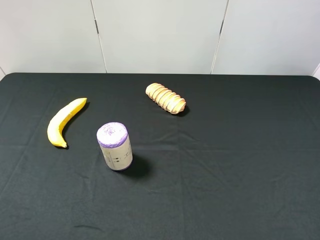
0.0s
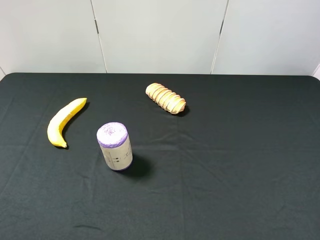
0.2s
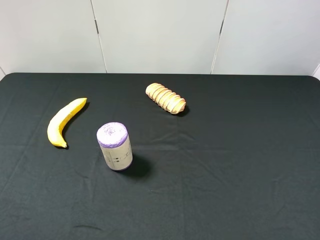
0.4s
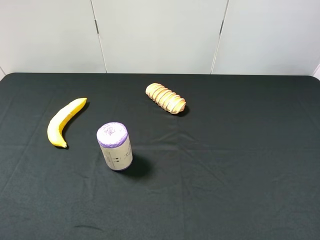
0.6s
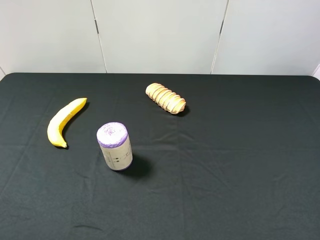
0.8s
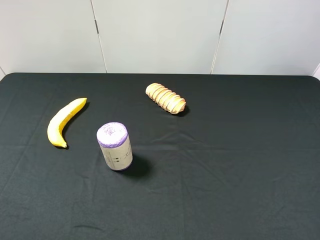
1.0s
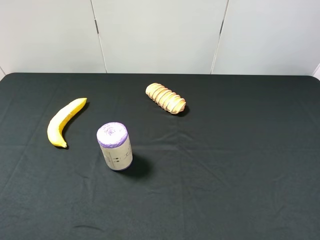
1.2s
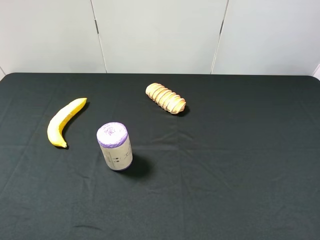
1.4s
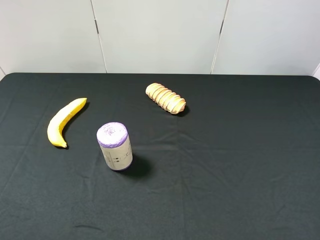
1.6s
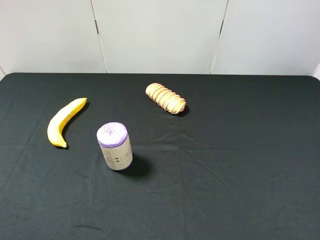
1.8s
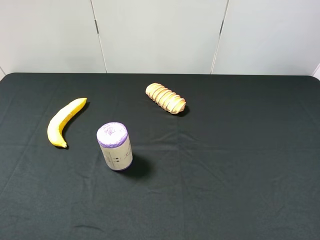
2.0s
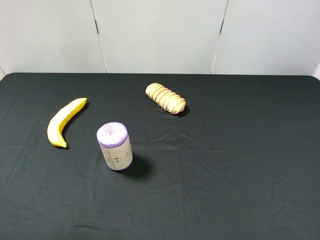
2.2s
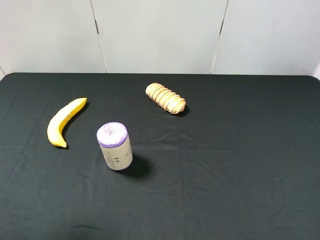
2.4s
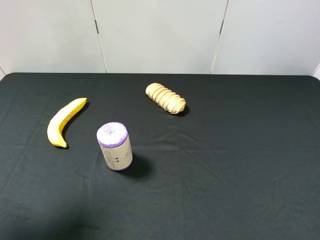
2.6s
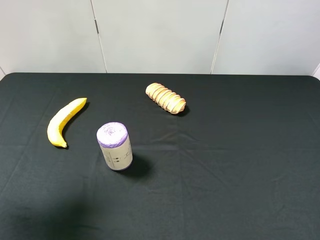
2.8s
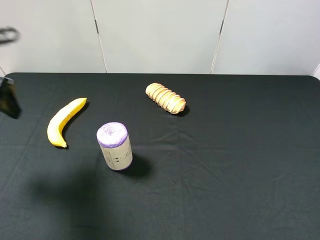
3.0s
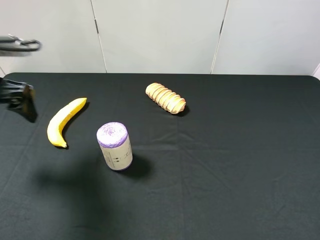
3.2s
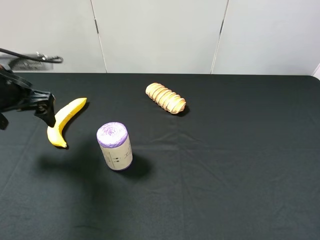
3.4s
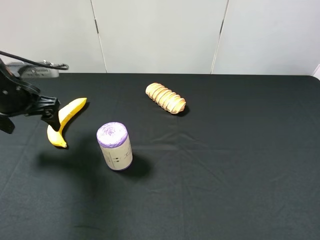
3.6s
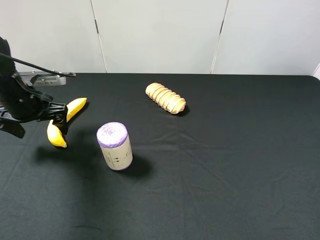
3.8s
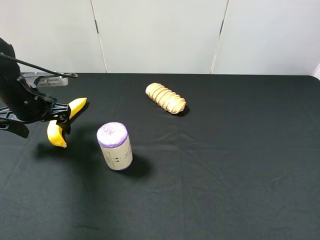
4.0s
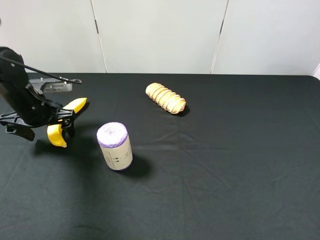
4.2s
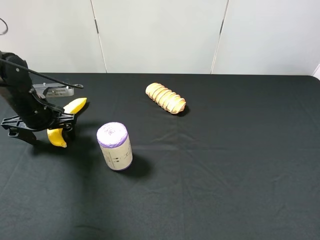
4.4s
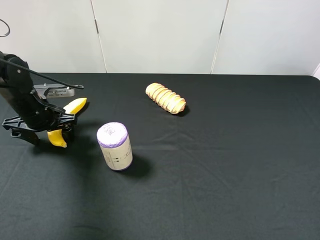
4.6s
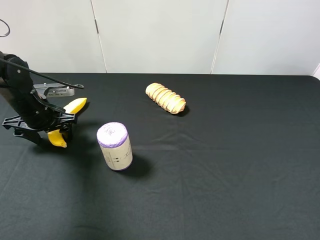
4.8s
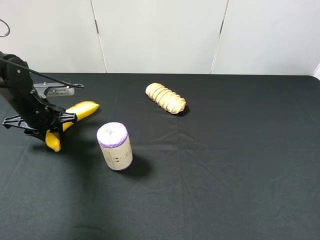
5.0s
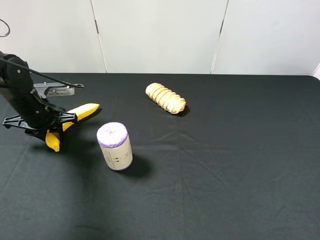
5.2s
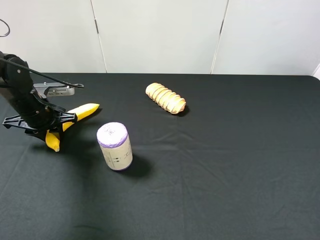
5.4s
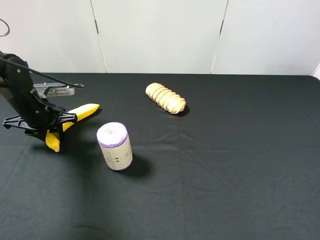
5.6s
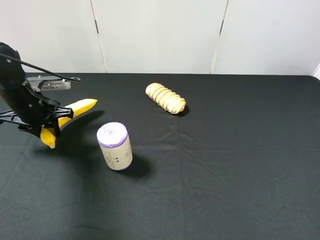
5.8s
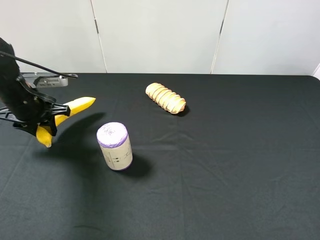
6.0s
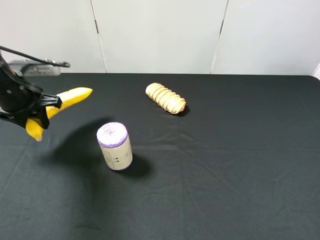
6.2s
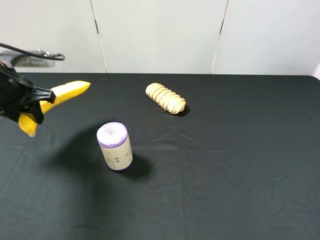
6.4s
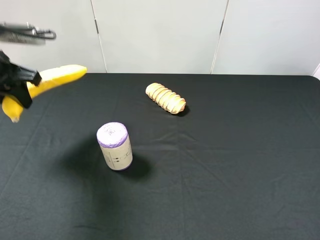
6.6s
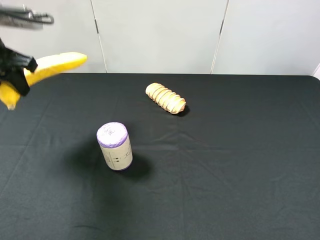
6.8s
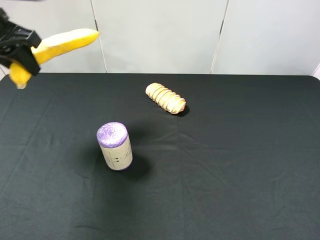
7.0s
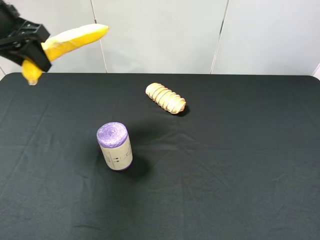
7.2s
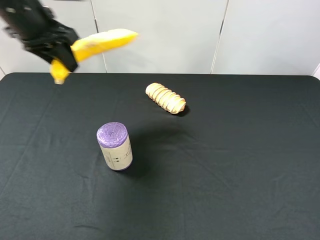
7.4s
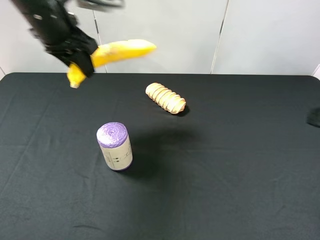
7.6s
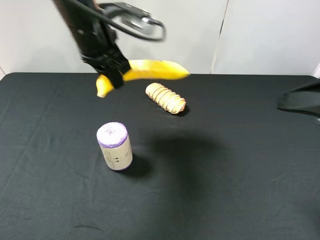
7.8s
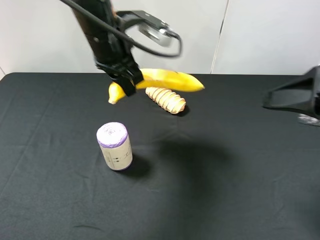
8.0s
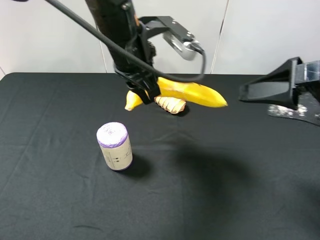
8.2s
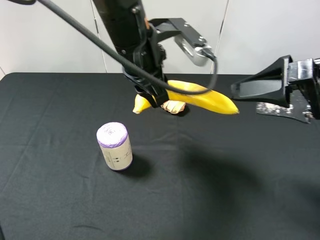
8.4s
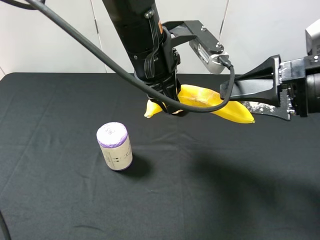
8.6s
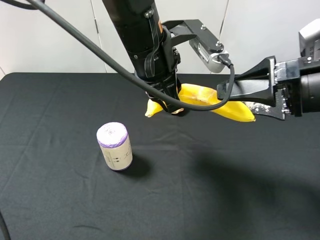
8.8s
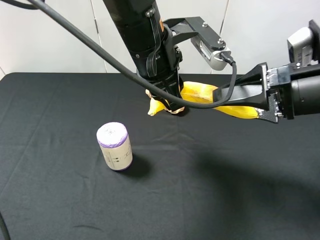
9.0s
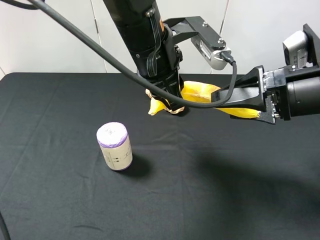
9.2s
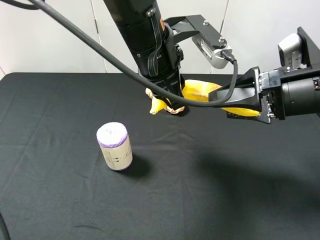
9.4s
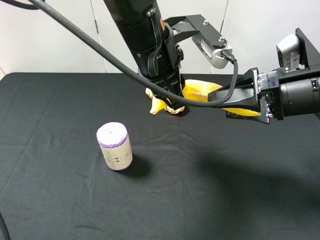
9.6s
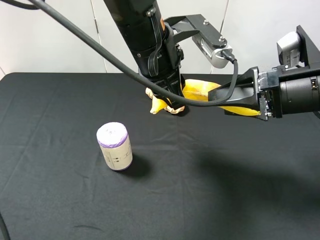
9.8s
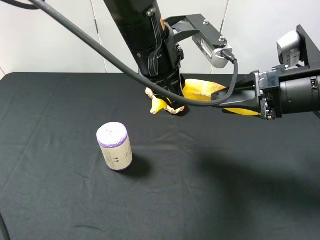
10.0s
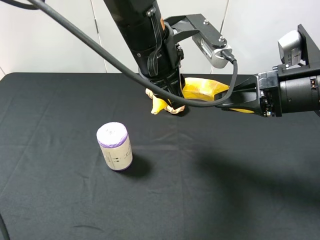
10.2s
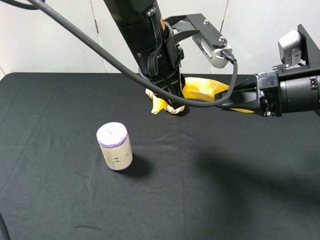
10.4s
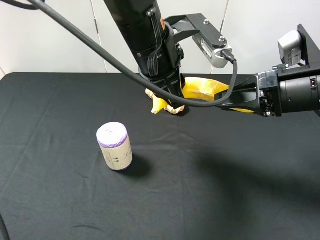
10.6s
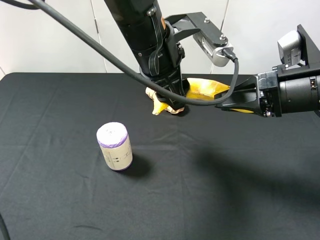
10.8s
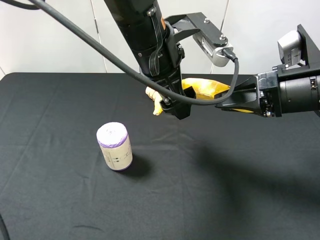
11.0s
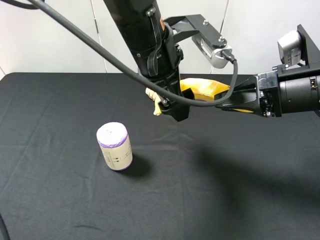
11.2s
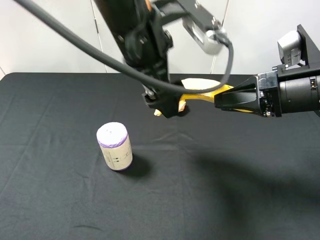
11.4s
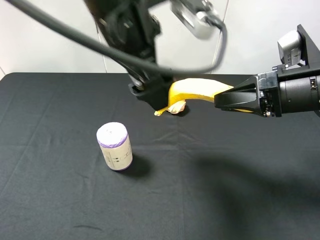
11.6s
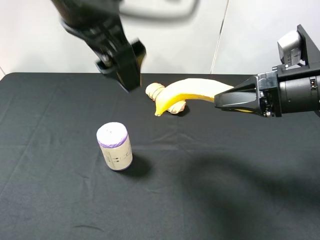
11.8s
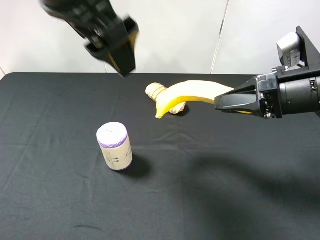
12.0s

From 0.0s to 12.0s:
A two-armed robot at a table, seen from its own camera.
Task of the whole recording: use the left gripper to pick up the item and transfer it from the left gripper to the right gripper.
From 0.0s to 1.6s: Neither gripper changes place.
From 1.6s to 3.0s: The left gripper travels forward by roughly 25 cm.
From 3.0s to 4.4s: The left gripper heads downward and forward, covering some 20 cm.
From 4.4s to 6.0s: The left gripper closes up.
From 6.0s to 7.6s: The right gripper shifts roughly 10 cm forward, while the left gripper shifts approximately 20 cm upward and to the right.
From 7.6s to 9.0s: The left gripper heads to the right and backward, covering some 20 cm. The right gripper moves forward, approximately 10 cm.
From 9.0s to 10.4s: The right gripper closes.
From 10.4s to 12.0s: The left gripper is displaced upward, to the left and backward by approximately 15 cm, and opens its fingers.

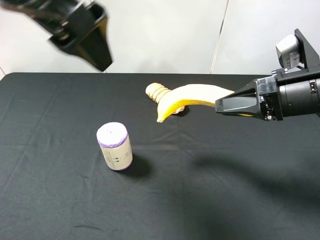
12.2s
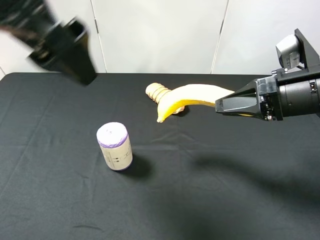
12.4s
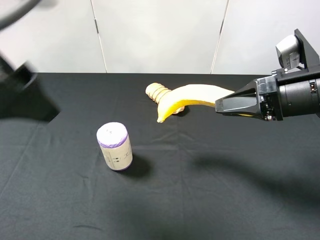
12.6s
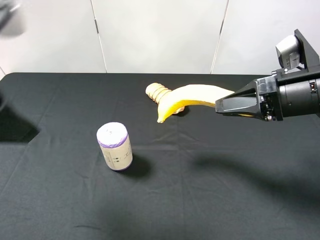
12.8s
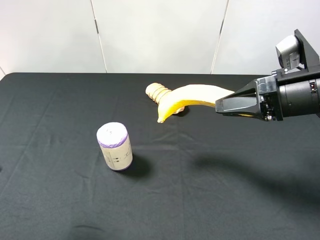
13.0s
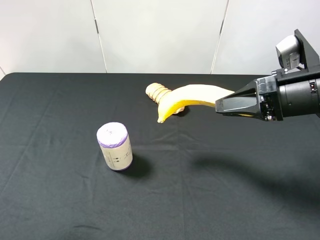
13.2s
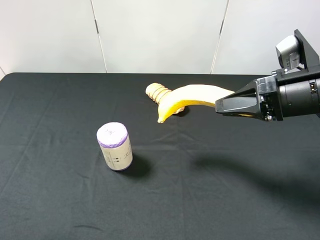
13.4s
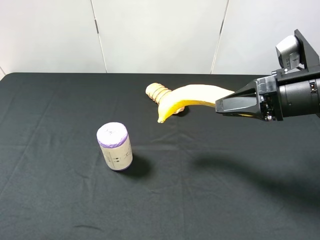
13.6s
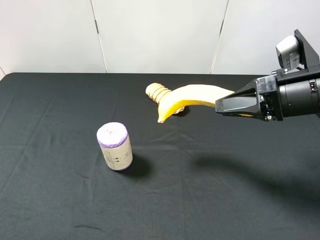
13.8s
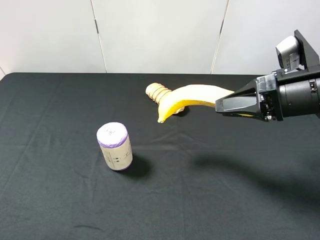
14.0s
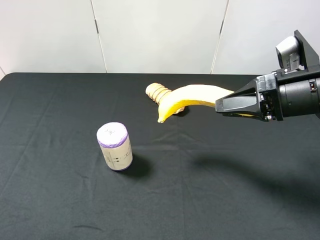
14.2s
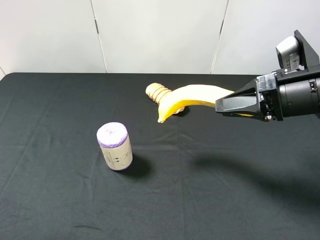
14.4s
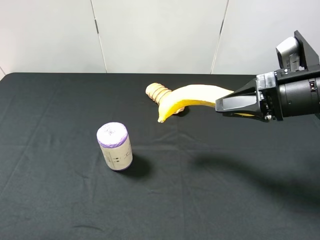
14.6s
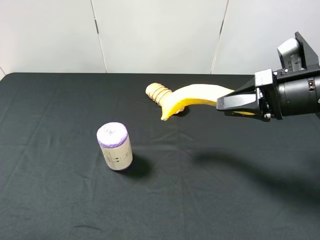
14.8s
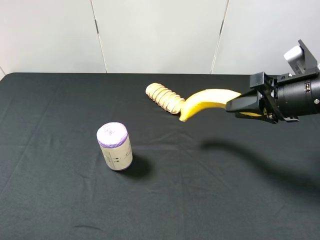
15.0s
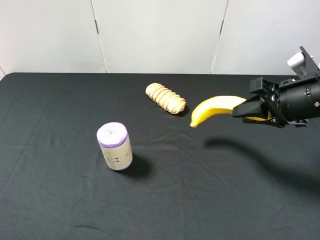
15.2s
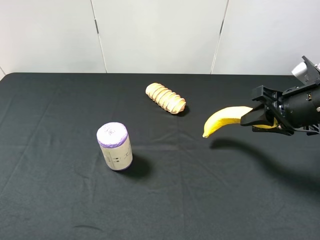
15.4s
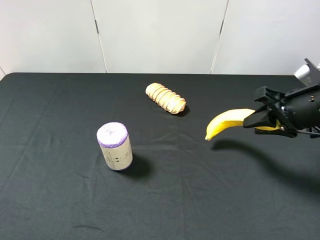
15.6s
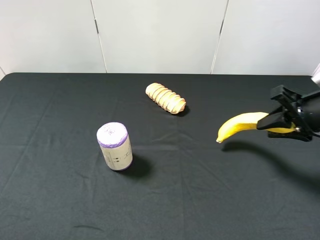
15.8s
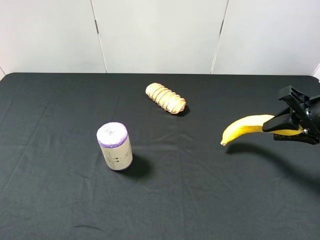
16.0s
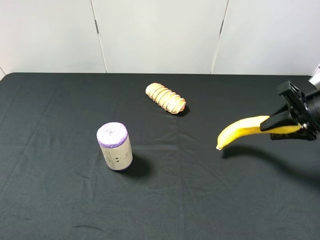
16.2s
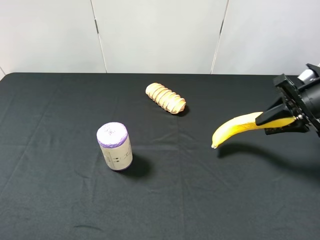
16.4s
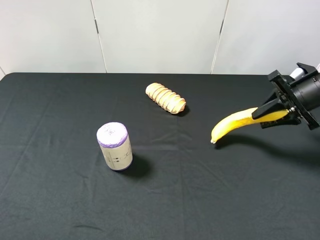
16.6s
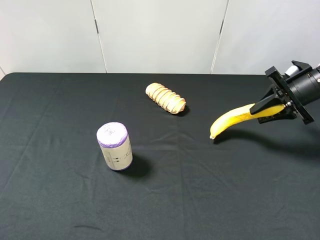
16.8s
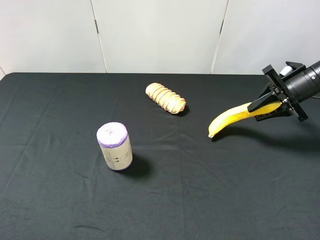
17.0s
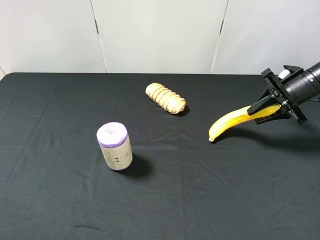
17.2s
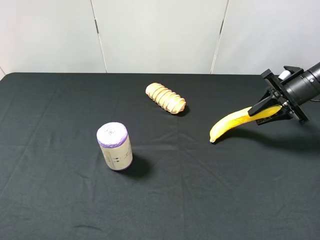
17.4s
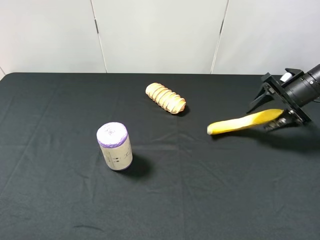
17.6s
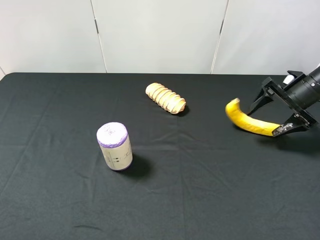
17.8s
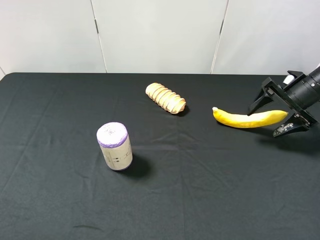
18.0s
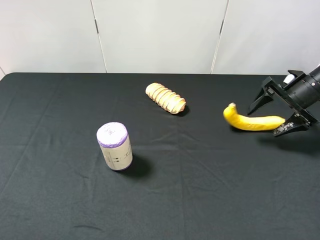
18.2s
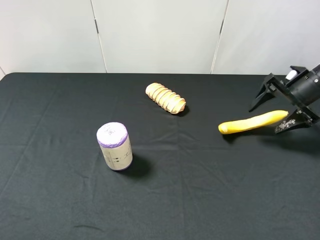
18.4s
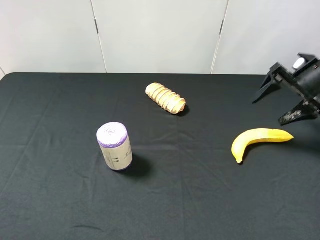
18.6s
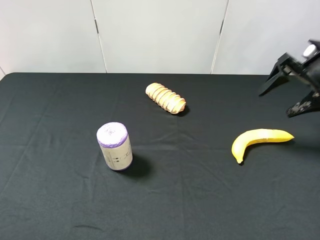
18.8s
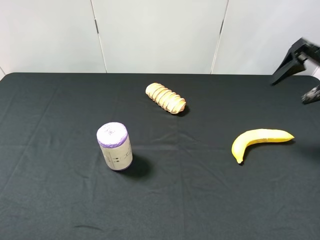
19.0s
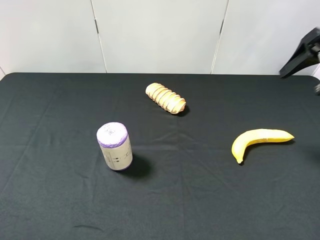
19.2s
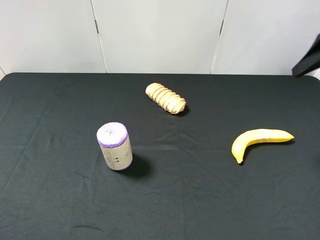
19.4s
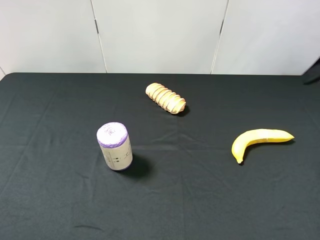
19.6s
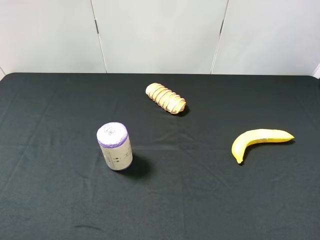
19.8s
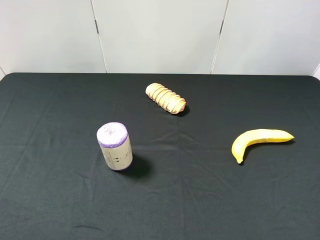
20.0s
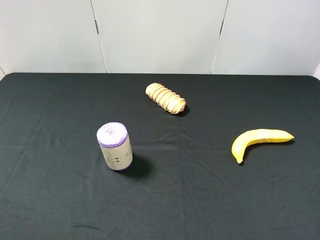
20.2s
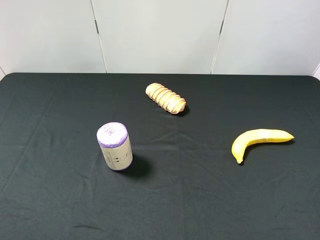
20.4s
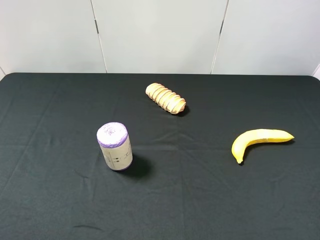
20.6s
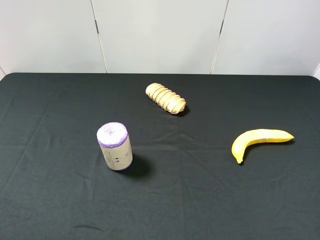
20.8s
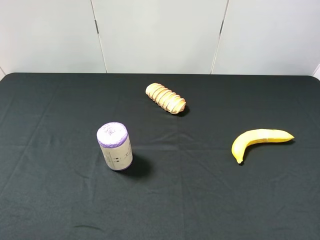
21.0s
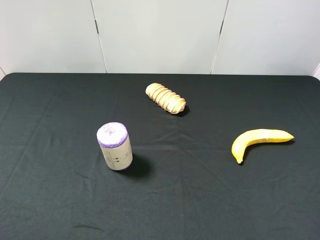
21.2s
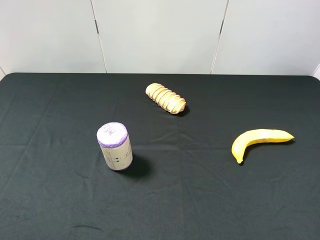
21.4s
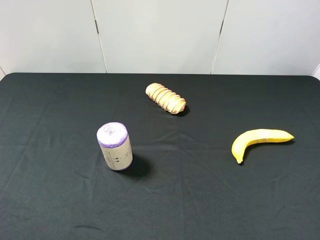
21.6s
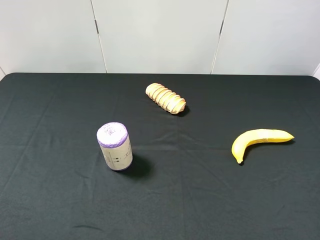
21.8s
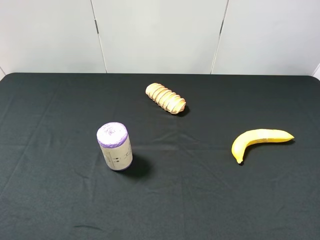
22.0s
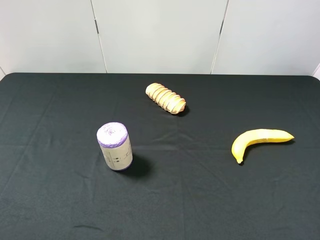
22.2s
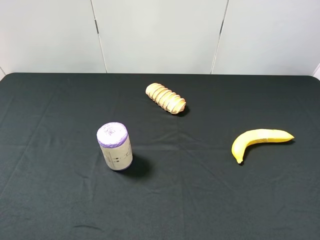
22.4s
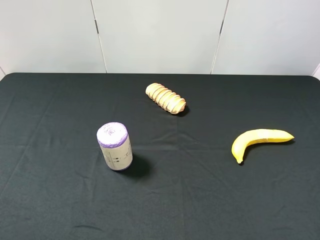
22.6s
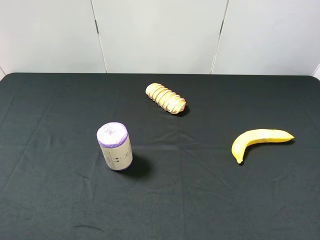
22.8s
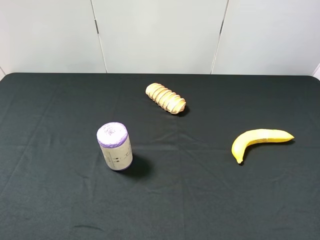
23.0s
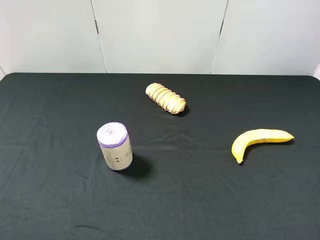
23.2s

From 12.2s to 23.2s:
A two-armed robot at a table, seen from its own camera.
Task of the whole recording: use the left gripper to pick up the item and transfer it from the left gripper to the right gripper.
From 12.2s to 13.8s: The left gripper shifts roughly 25 cm to the left, backward and downward.
From 15.4s to 17.0s: The right gripper goes about 15 cm forward and to the right.
From 17.0s to 18.4s: The right gripper opens its fingers.
From 18.4s to 20.0s: The right gripper moves backward and upward, about 25 cm.
